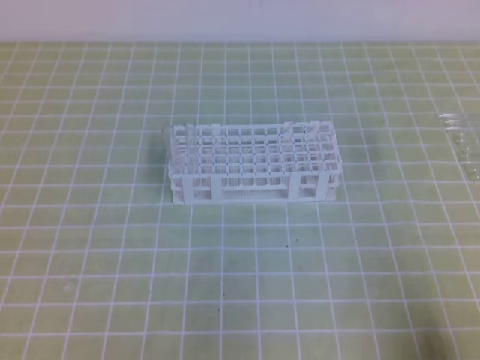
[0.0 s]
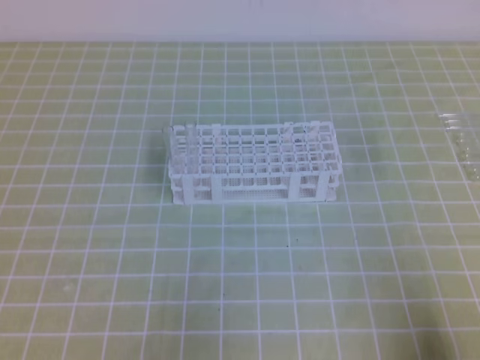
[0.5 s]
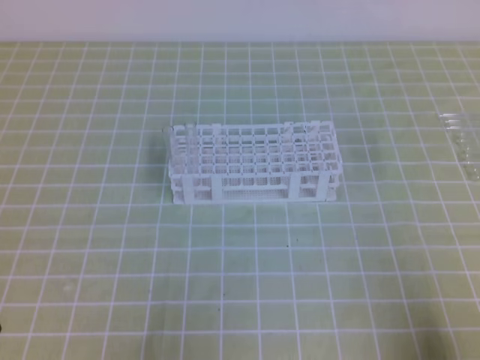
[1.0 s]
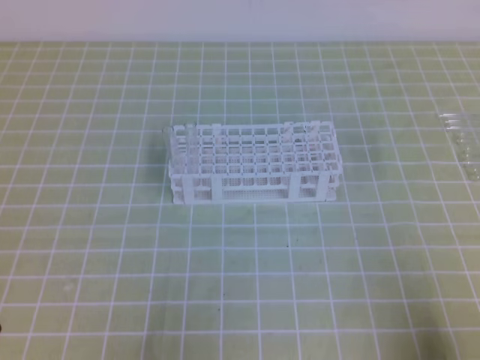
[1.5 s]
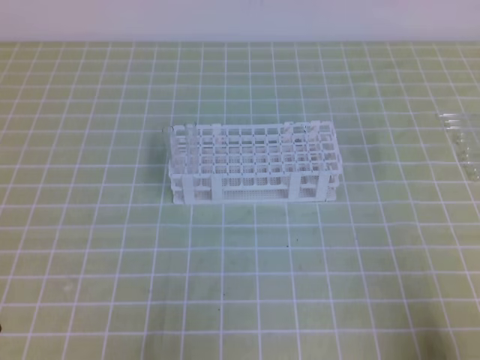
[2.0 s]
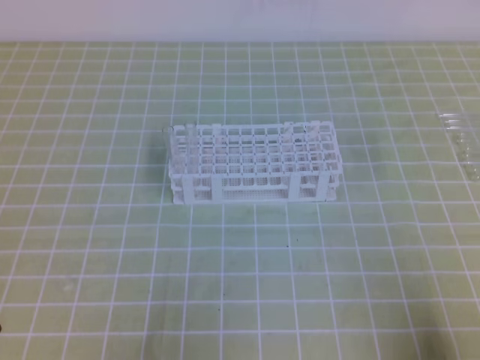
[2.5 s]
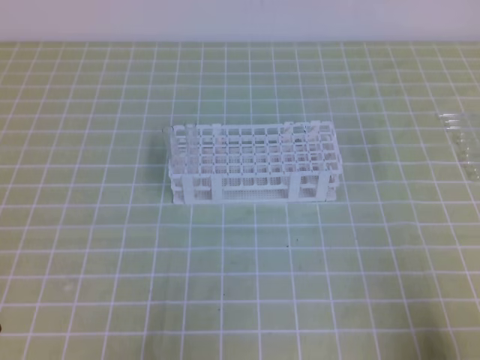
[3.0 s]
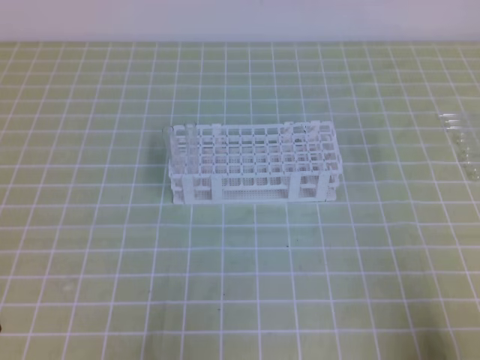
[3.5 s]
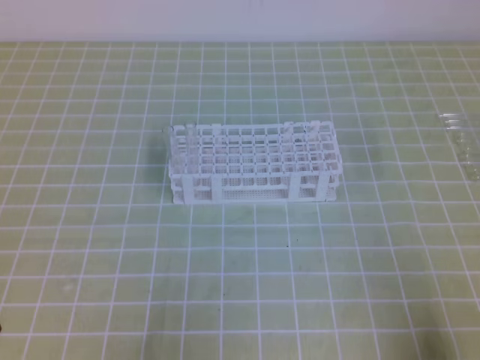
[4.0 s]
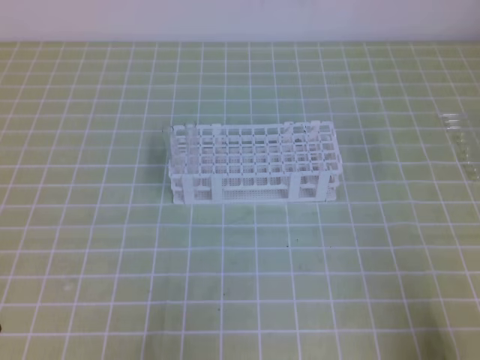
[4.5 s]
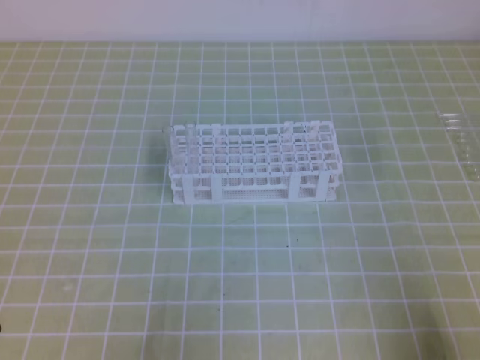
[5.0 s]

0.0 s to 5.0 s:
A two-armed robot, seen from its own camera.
2.5 to 5.0 s: Both grippers stay about where they are.
